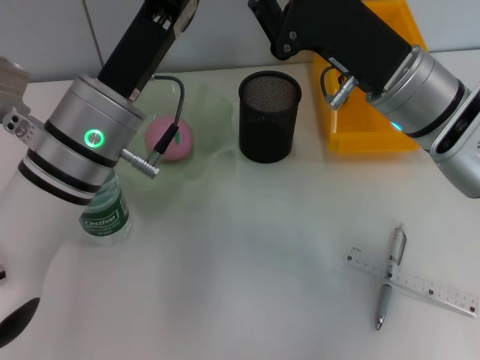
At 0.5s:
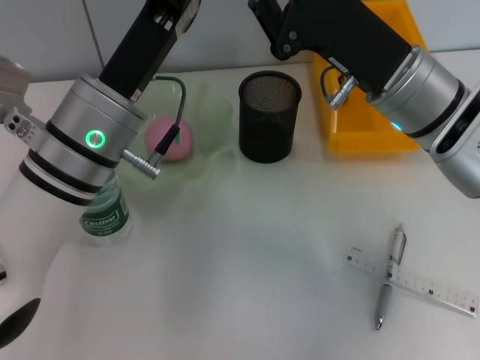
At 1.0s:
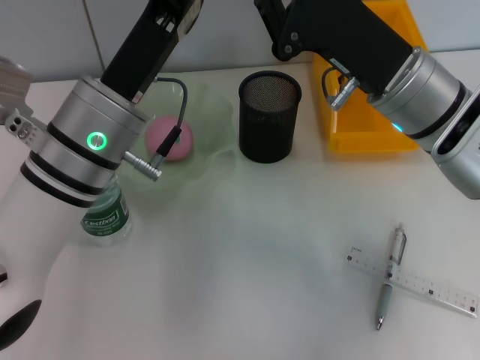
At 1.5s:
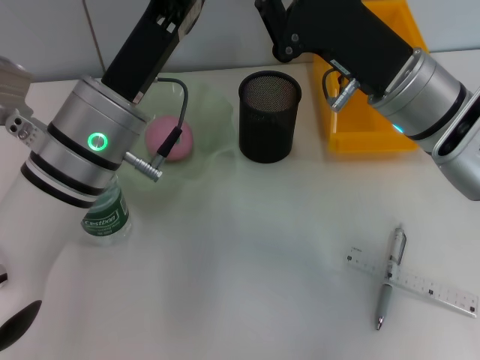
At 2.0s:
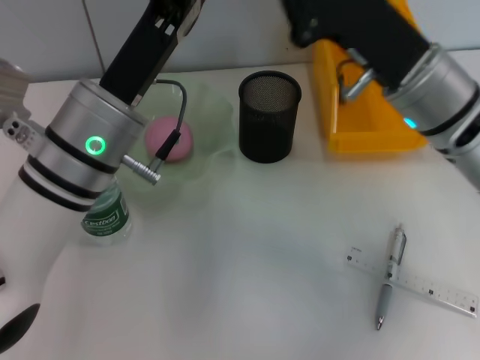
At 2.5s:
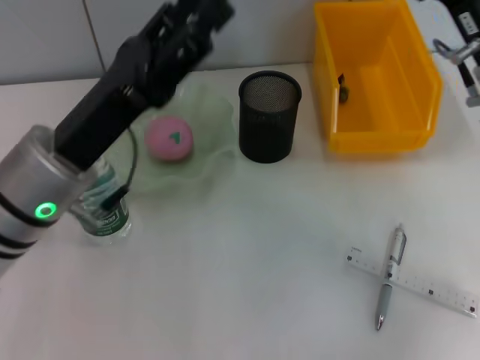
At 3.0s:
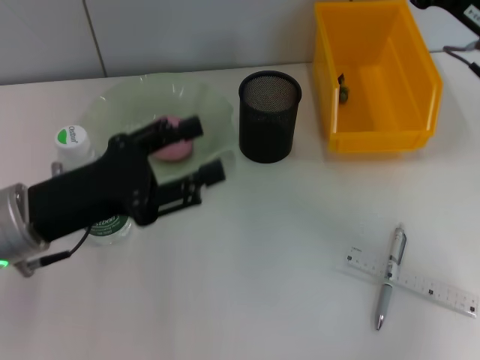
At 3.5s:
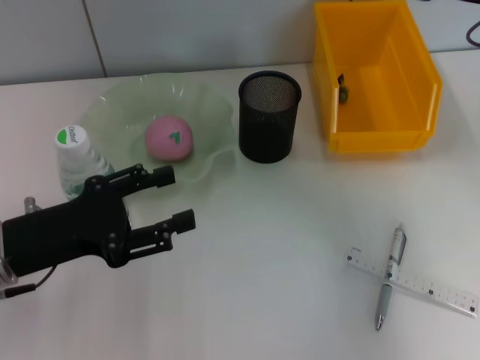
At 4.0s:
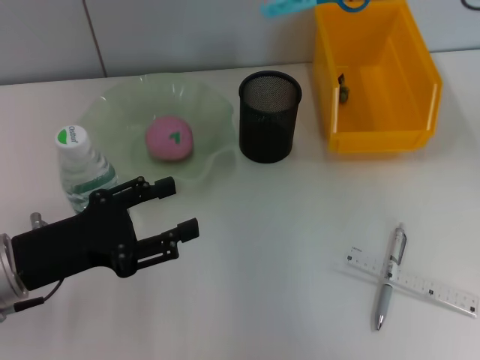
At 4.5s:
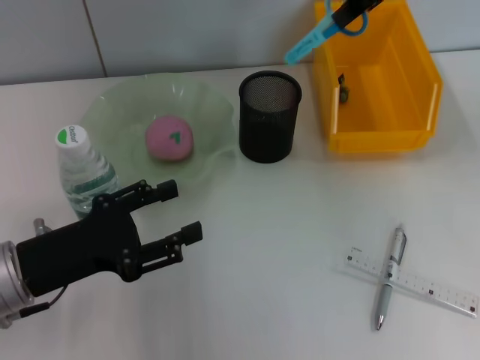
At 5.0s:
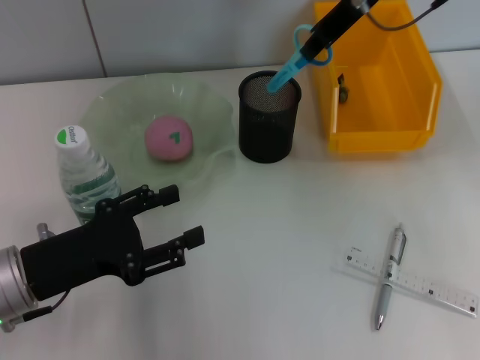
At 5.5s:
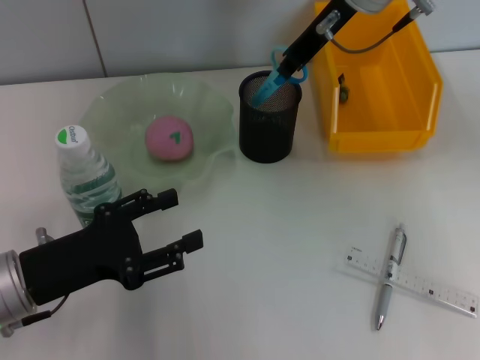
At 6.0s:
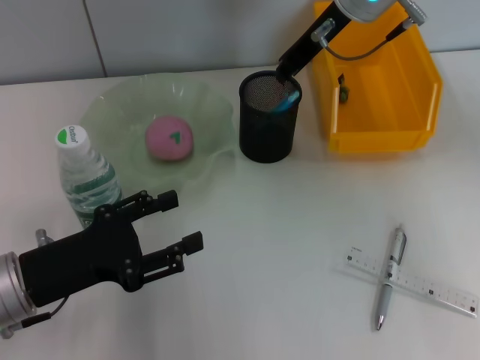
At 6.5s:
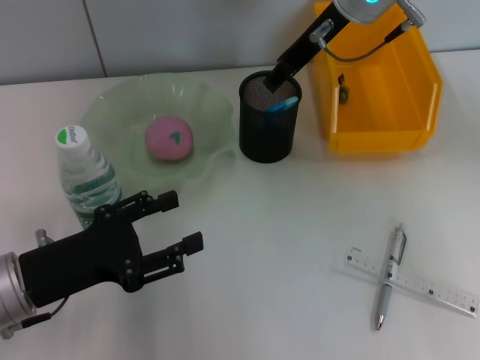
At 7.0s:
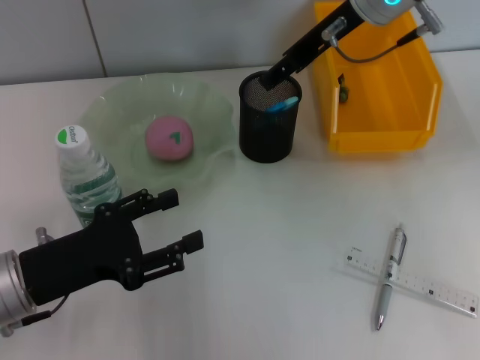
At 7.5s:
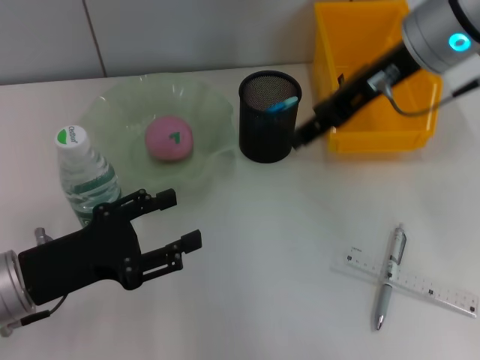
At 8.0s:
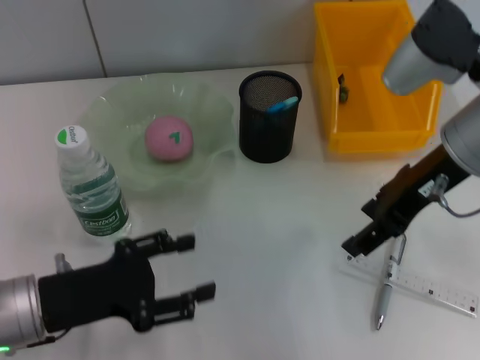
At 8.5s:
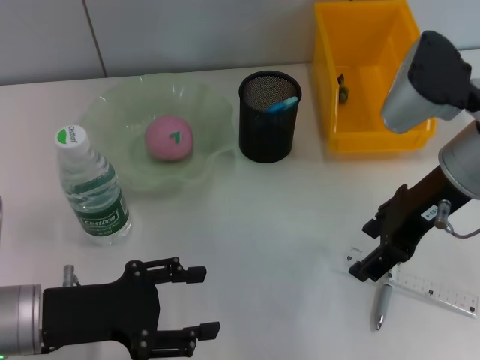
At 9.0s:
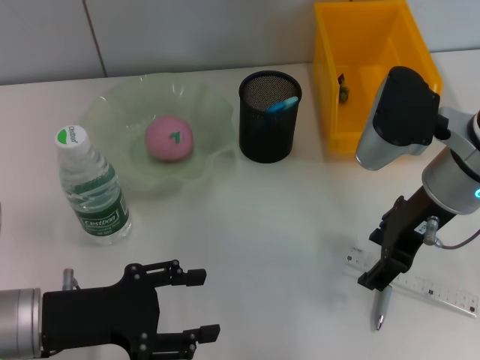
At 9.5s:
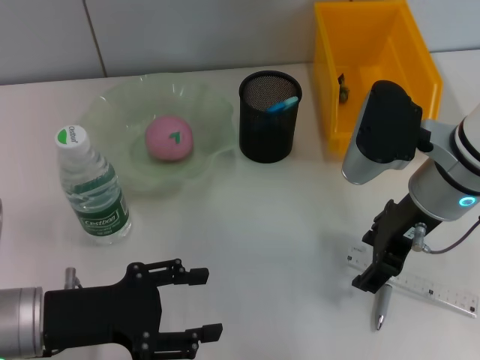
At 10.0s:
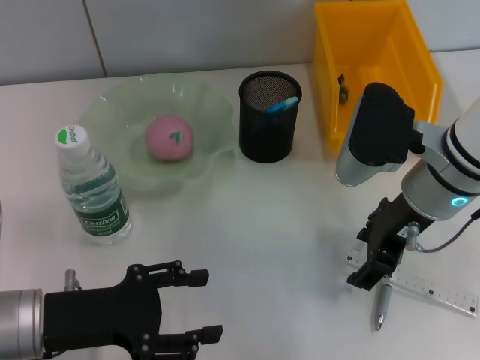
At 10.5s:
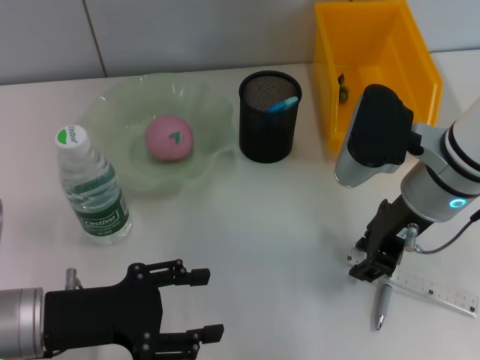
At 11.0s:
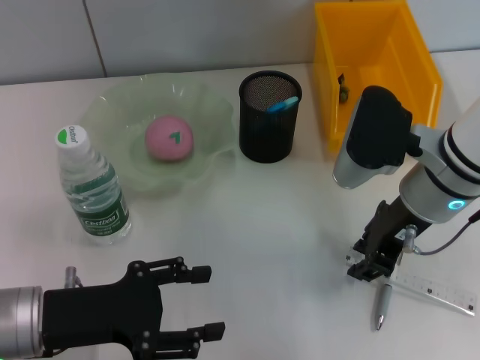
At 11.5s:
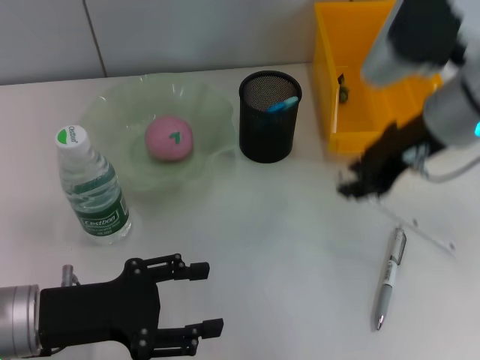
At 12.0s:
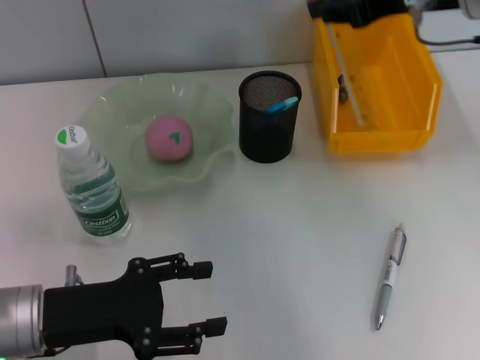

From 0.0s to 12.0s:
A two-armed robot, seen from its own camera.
Step, from 0.0s to 2.0s: Pass the blue utility knife from the left hand to the right hand.
Step, from 2.5s to 6.0s: Place the blue scissors into the pen holder with the right hand.
Step, from 6.5s to 10.5s: Grab the ruler with the right hand.
From 0.0s to 2.0s: The left gripper opens up.
From 2.0s to 4.0s: The right gripper shifts about 20 cm upward, to the right and forward; the left gripper goes approximately 15 cm to the left, downward and backward.
From 4.0s to 6.0s: The right gripper is displaced to the left, downward and forward by some 15 cm.
From 6.0s to 8.0s: The right gripper heads backward and to the right, covering approximately 15 cm, and opens its fingers.
From 8.0s to 10.0s: The right gripper is displaced downward by some 5 cm.
From 10.0s to 12.0s: The right gripper shifts about 15 cm upward, and closes.

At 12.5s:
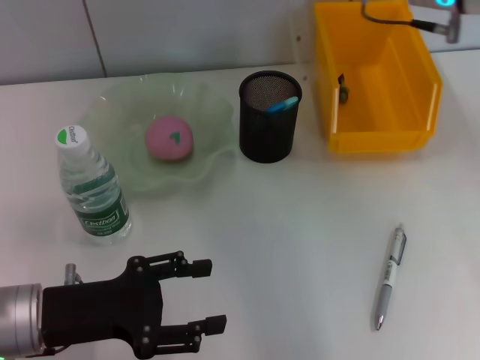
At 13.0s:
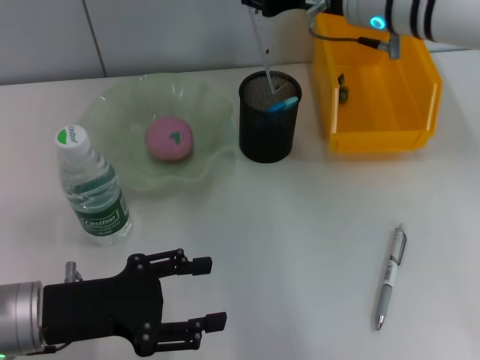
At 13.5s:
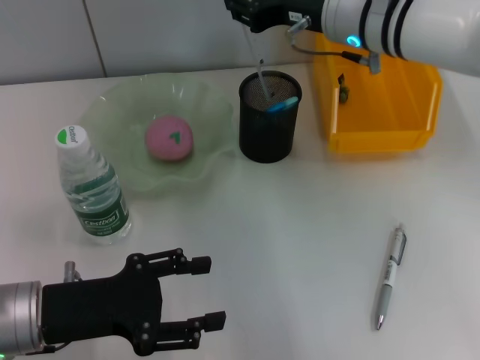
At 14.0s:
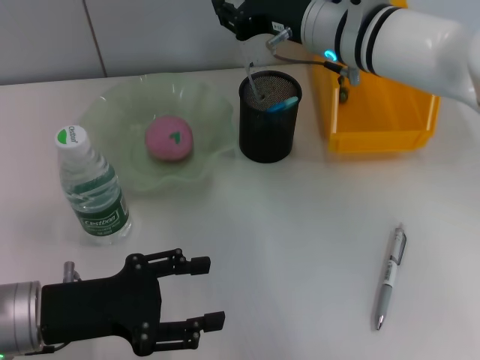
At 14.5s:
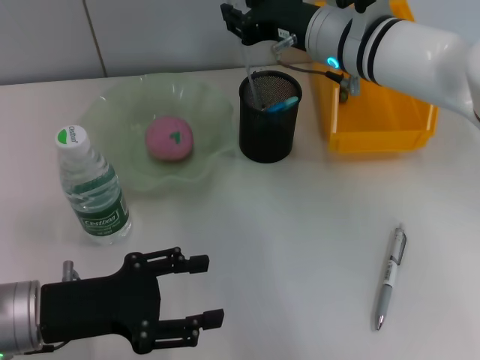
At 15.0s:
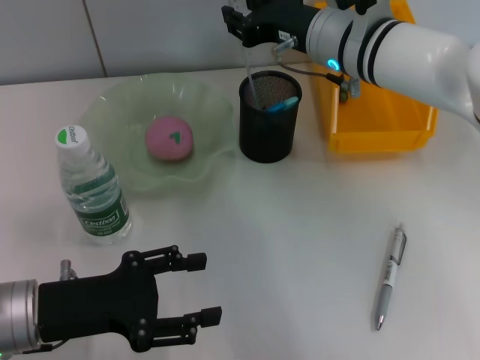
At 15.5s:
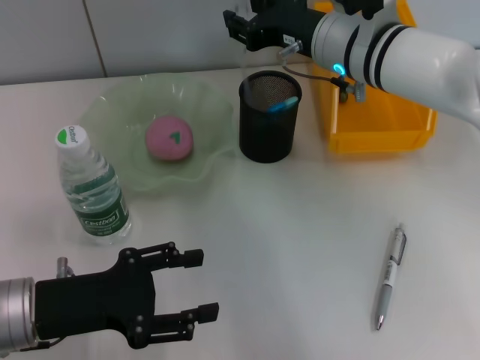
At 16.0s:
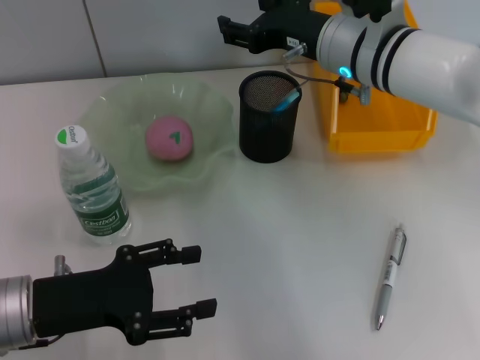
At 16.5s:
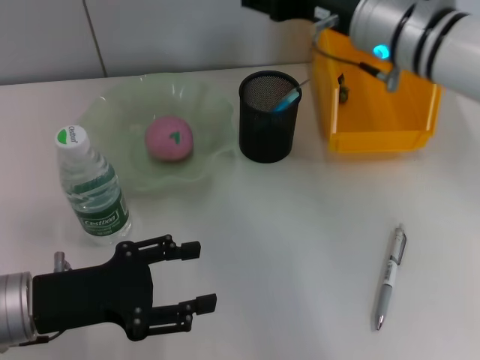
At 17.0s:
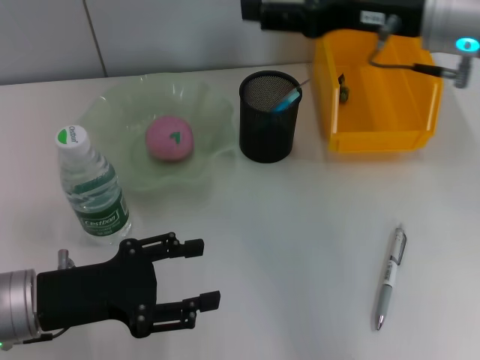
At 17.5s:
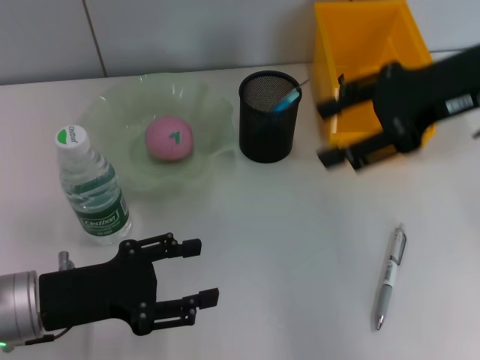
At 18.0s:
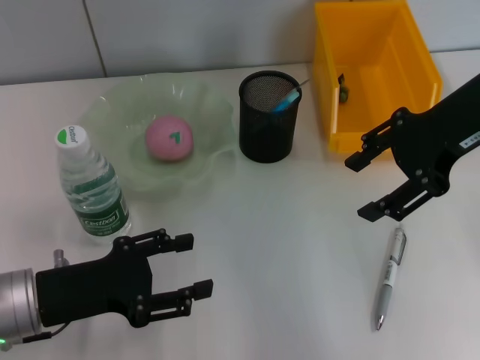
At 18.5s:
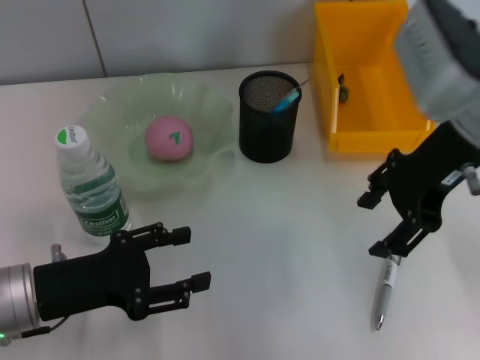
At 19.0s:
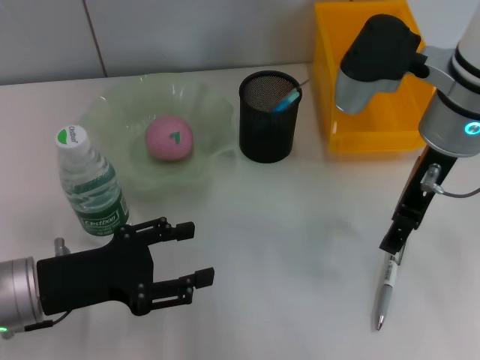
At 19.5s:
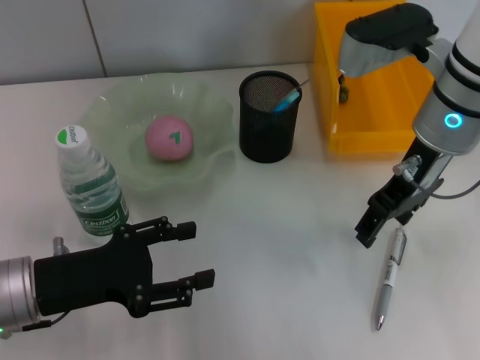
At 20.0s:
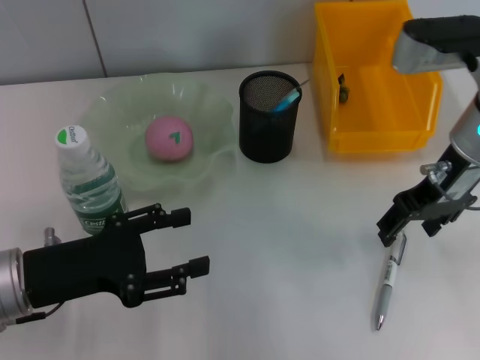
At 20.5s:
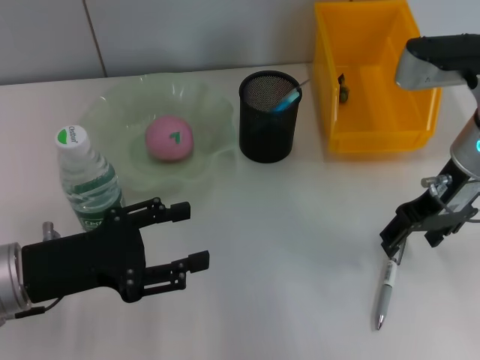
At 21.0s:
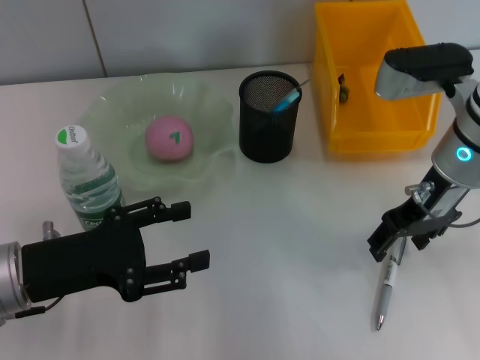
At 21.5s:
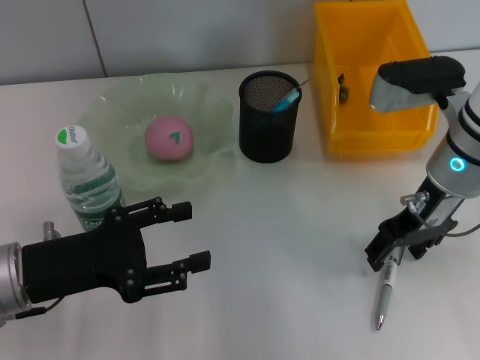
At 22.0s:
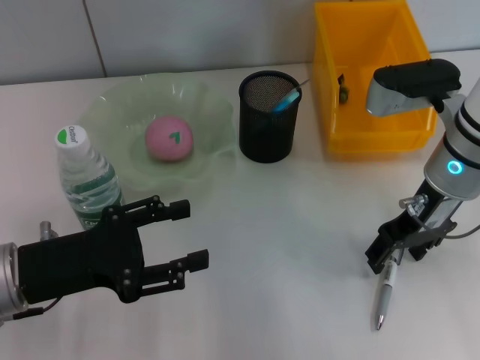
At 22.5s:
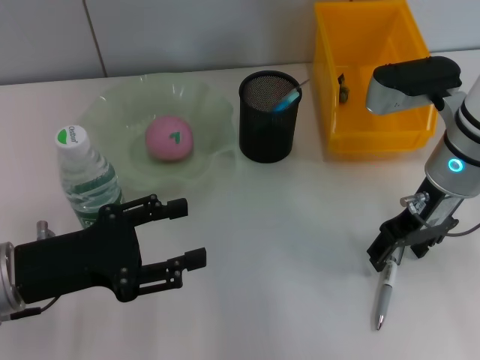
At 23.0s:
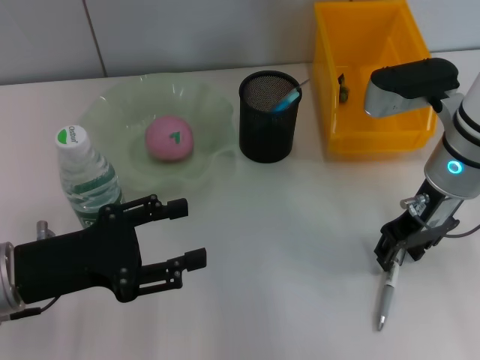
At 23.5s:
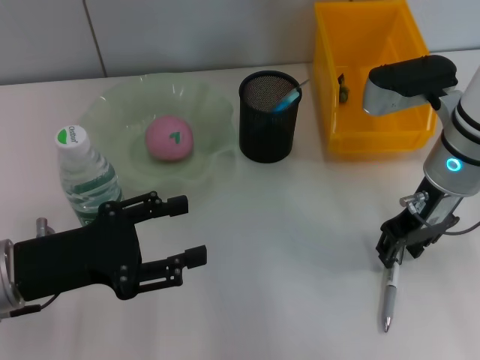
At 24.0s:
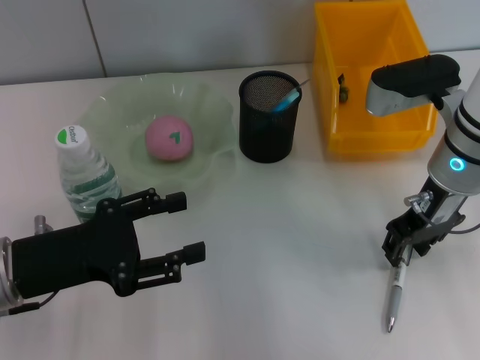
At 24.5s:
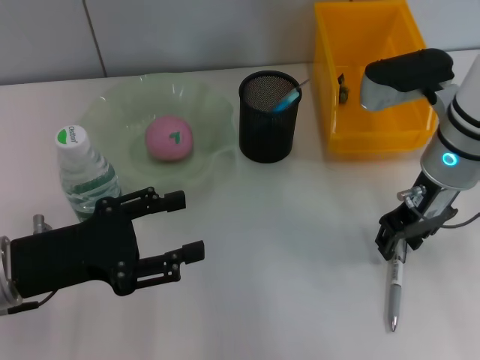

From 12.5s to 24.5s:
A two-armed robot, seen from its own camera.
Step, from 12.5s to 15.5s: Place the ruler into the pen holder with the right hand.
From 12.5s to 14.5s: The right gripper is displaced downward and to the left by roughly 10 cm.
From 14.5s to 16.5s: The right gripper shifts by approximately 5 cm, and opens its fingers.
From 18.5s to 20.5s: The right gripper moves downward, some 5 cm.
From 20.5s to 22.5s: There are only small adjustments of the grippers.
From 22.5s to 24.5s: The right gripper closes.

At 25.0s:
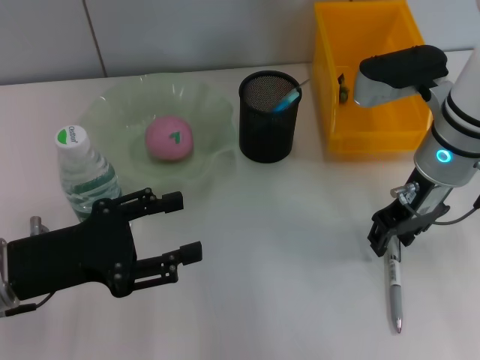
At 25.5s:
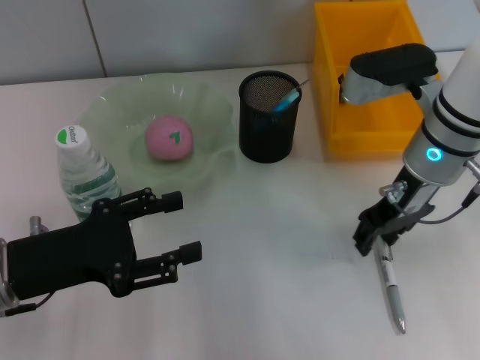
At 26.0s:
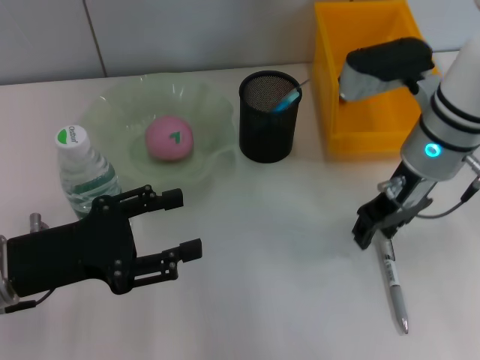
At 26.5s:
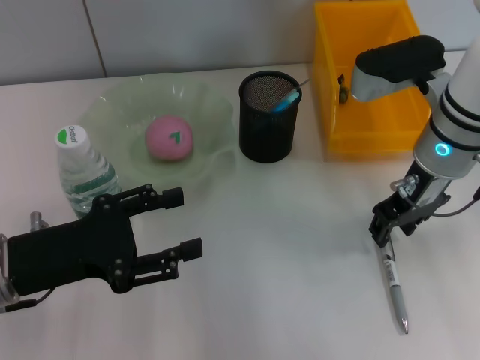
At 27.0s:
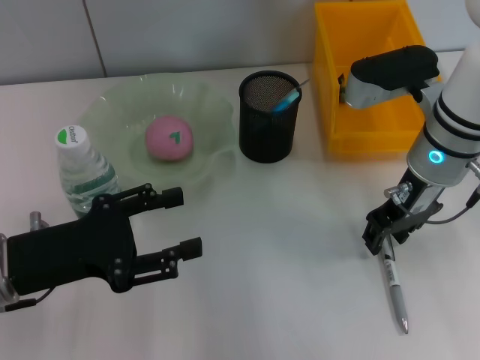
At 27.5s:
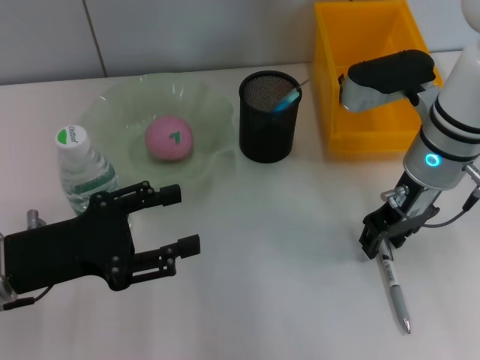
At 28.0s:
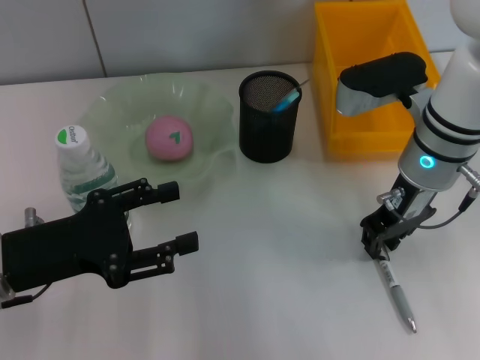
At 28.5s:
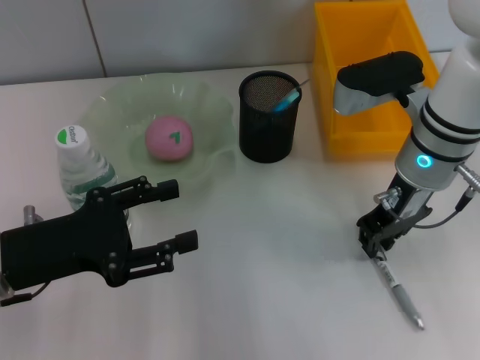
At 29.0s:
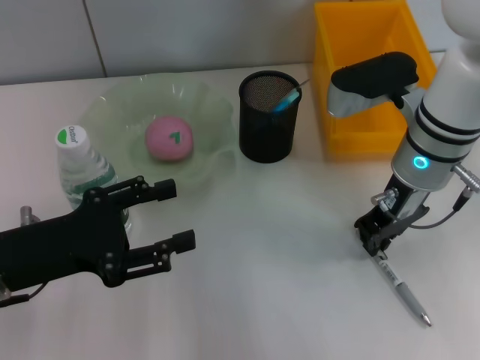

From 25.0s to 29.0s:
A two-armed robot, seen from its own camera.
From 25.0s to 27.0s: The grippers move only a little.
From 27.0s to 29.0s: The right gripper closes.
